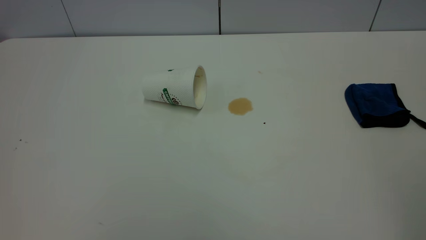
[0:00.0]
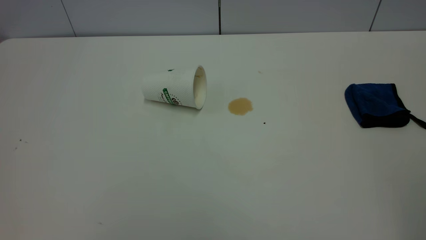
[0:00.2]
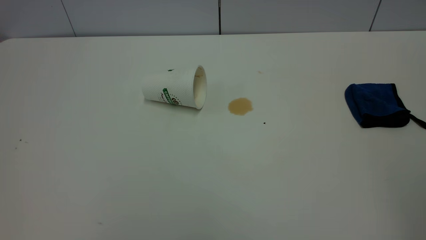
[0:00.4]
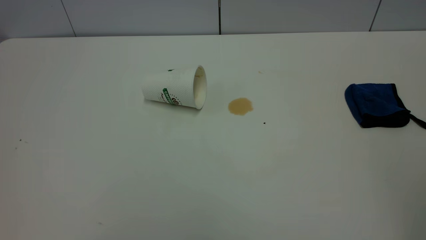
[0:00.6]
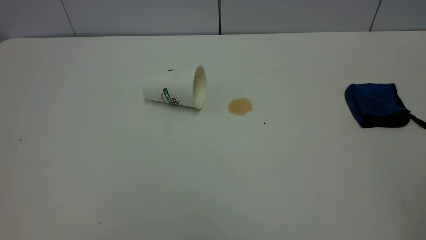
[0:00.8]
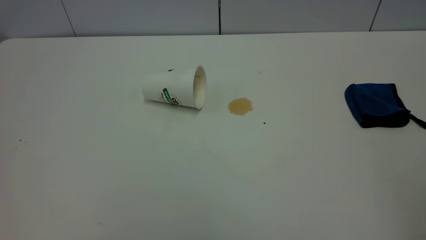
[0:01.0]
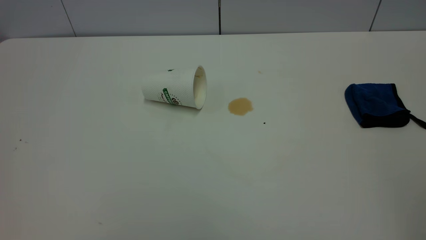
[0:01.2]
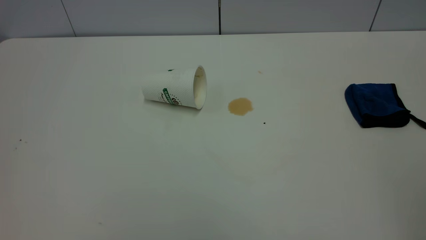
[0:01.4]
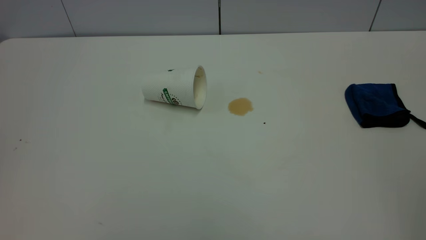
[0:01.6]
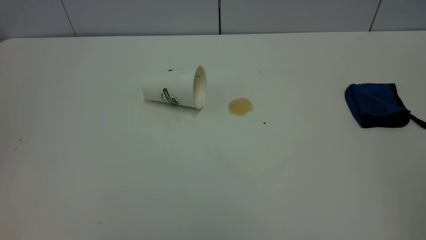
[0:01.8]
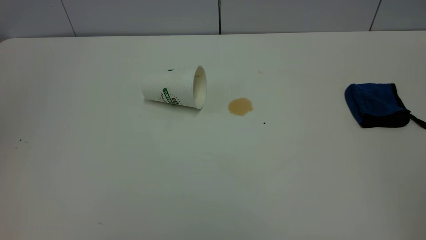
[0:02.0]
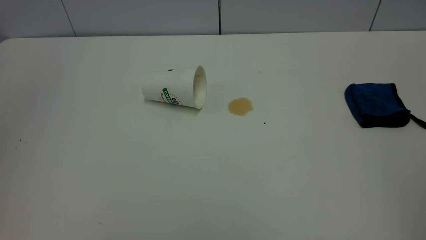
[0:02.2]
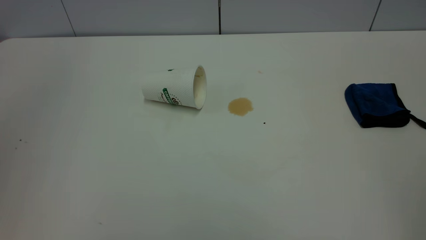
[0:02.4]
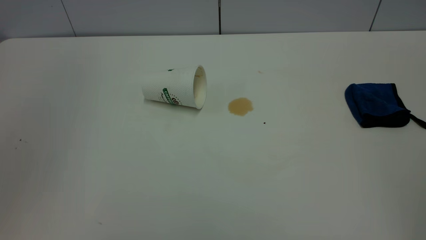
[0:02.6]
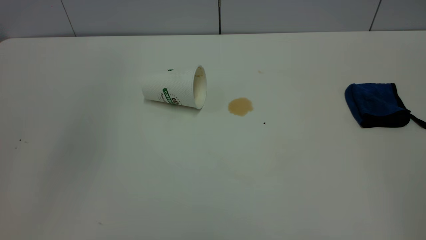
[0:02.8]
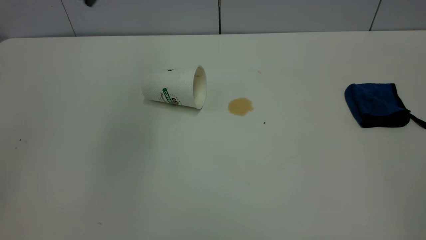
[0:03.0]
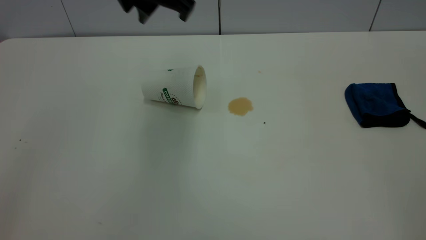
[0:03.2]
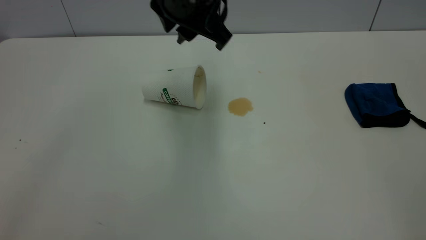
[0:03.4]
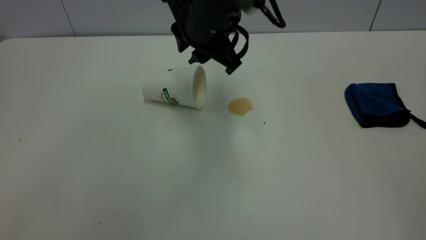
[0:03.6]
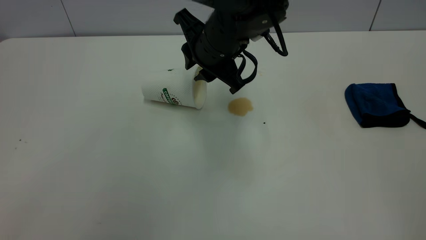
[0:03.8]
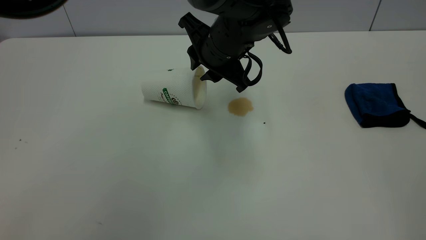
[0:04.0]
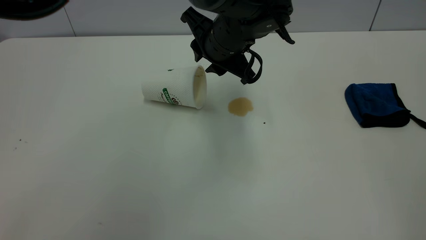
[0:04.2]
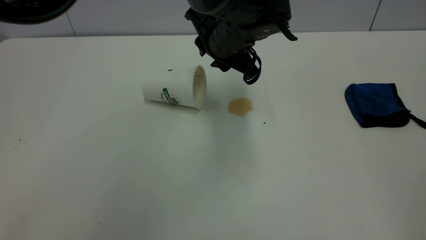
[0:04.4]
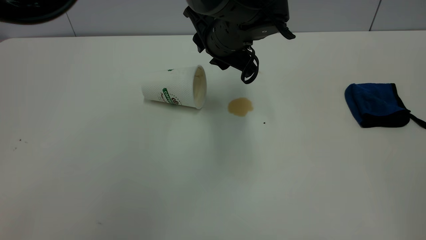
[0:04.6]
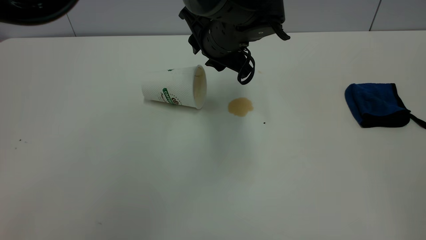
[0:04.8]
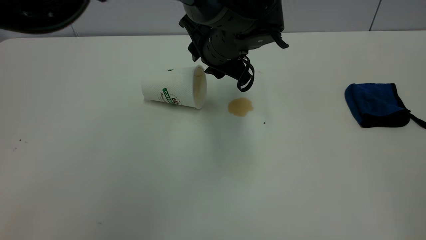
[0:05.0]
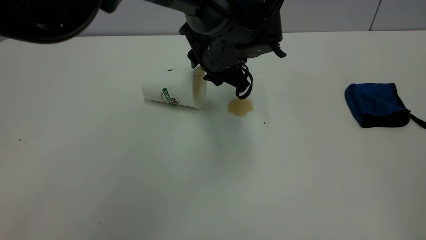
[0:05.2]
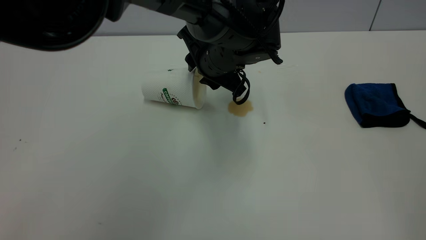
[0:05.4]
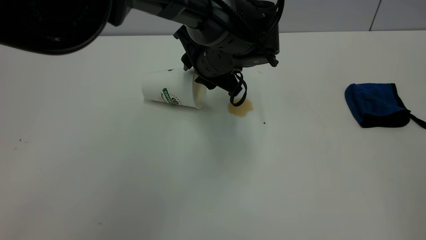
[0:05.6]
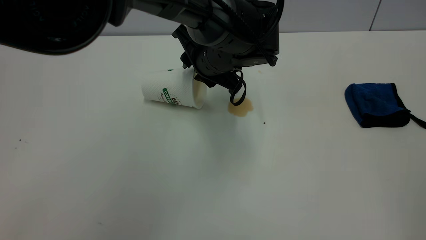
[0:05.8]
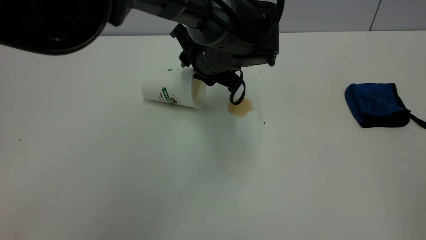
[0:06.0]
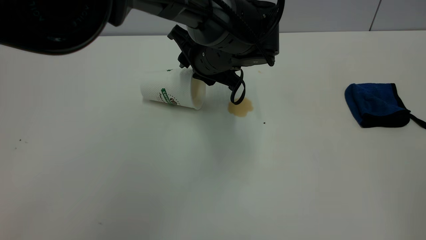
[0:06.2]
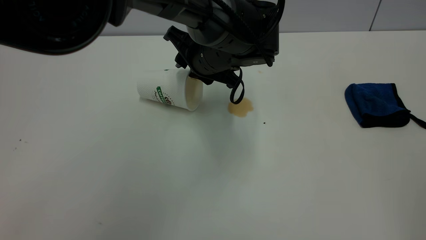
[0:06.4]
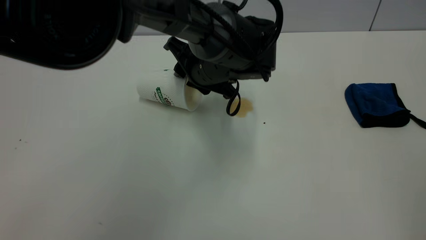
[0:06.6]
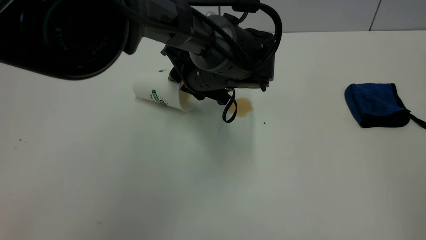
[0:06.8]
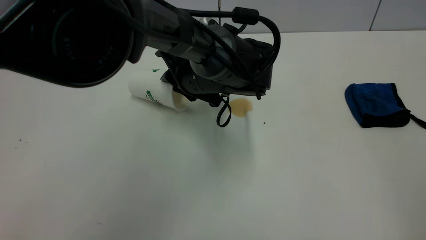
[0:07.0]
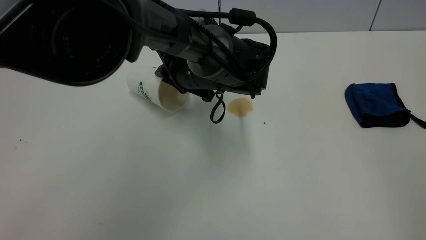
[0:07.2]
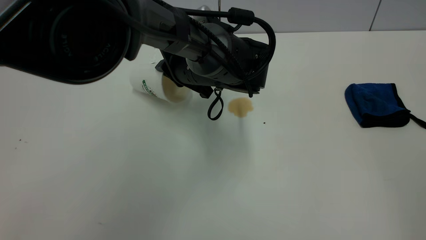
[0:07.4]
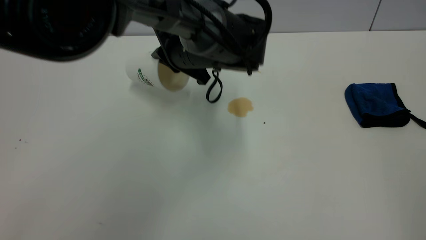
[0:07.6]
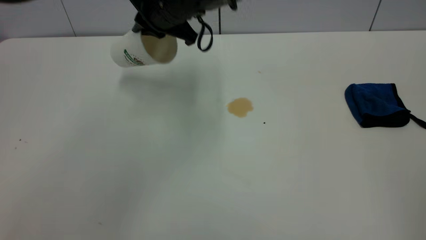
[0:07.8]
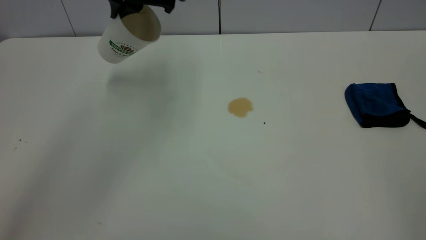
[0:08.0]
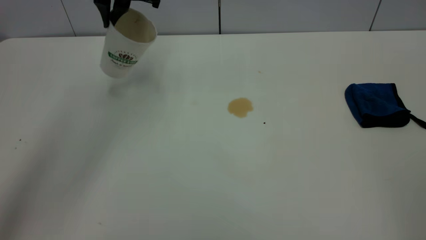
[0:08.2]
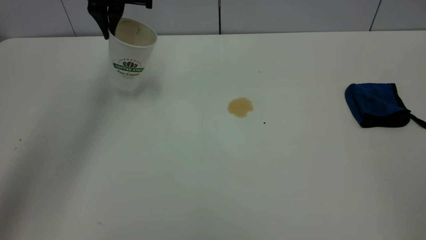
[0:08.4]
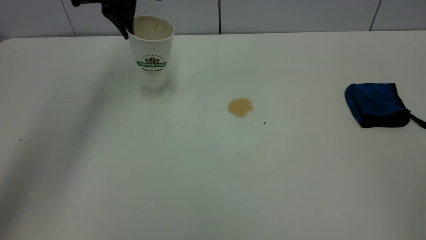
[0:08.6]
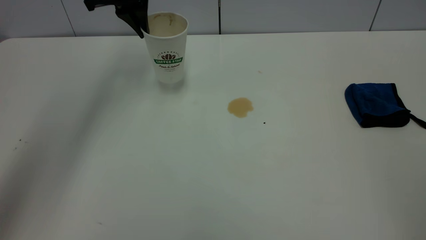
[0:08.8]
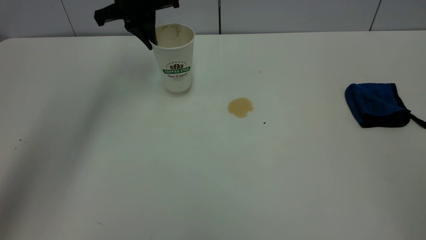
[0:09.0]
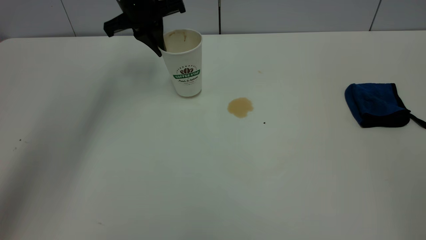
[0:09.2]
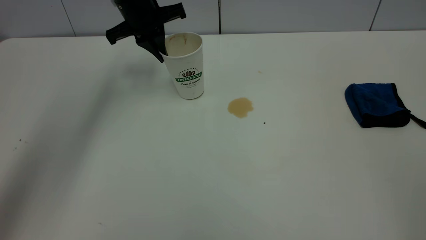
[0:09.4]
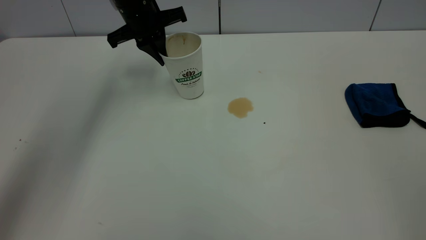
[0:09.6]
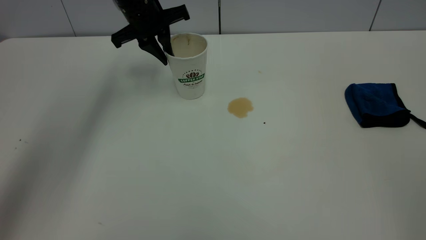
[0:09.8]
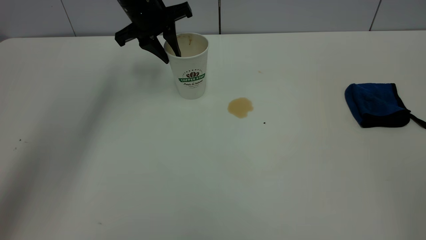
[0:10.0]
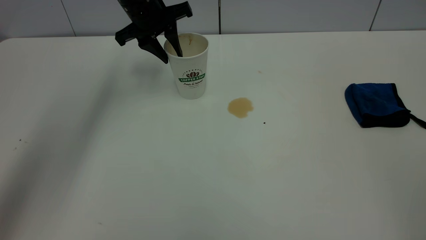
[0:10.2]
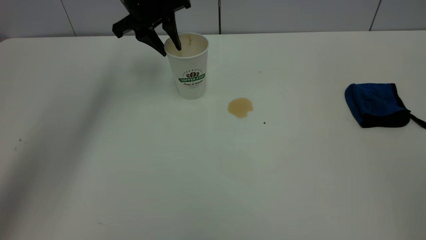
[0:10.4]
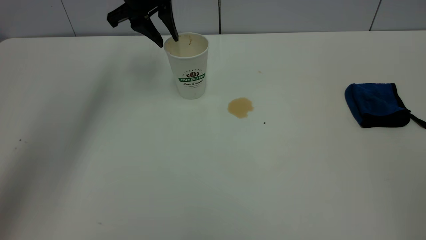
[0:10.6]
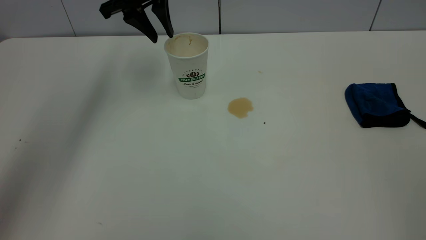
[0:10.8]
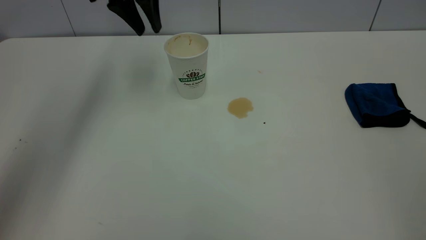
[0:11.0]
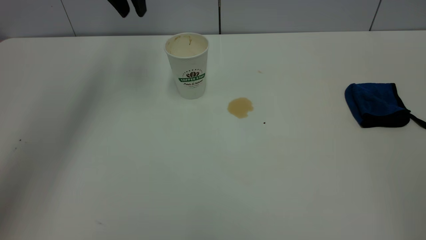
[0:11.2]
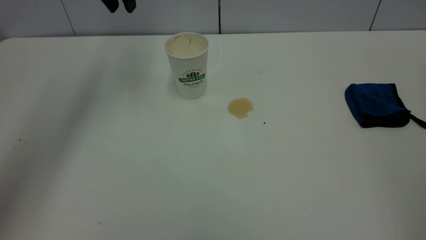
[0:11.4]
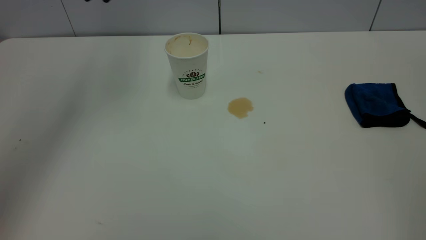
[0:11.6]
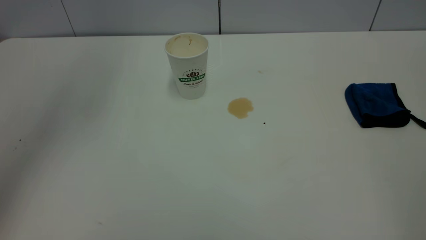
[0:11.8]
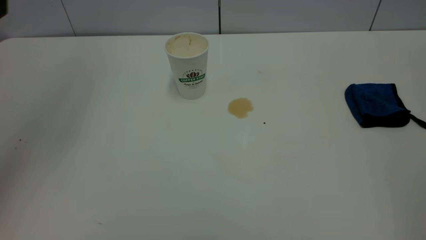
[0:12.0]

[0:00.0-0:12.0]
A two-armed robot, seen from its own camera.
Task of the whole recording: the left gripper pick up the fallen cup and place it upright, the right gripper grasp the blue rag and wipe the tea stain on the table, the right gripper put the blue rag back in its original position.
Step, 0:00.0 to 0:11.0: Stand the paper cup upright.
0:01.6 to 0:03.0: The left gripper shifts roughly 40 cm forward and to the right.
0:03.0 to 0:04.4: The left gripper goes some 25 cm downward, to the right and forward.
0:04.4 to 0:06.0: The grippers make only small movements.
0:06.0 to 0:07.6: The left gripper closes its fingers.
0:07.6 to 0:09.0: The left gripper moves to the left, forward and upward, roughly 15 cm.
0:09.0 to 0:10.4: The left gripper opens its fingers.
0:10.4 to 0:12.0: The left gripper moves backward, upward and to the left, roughly 25 cm.

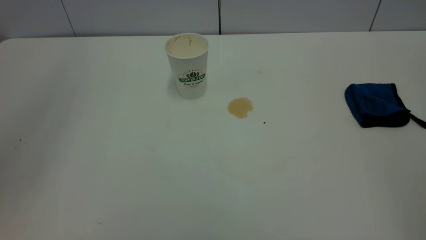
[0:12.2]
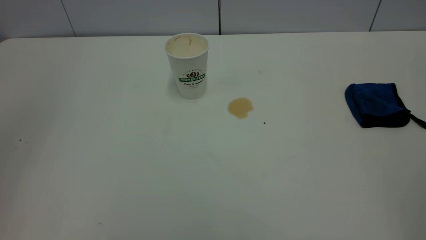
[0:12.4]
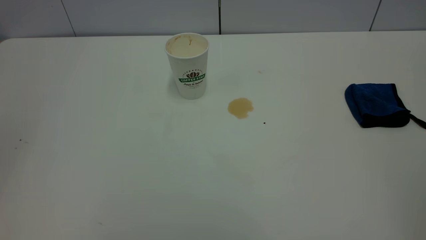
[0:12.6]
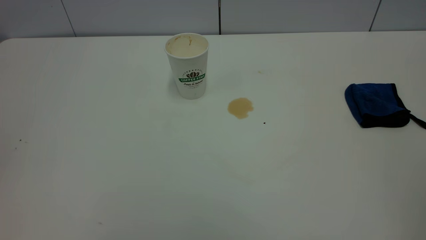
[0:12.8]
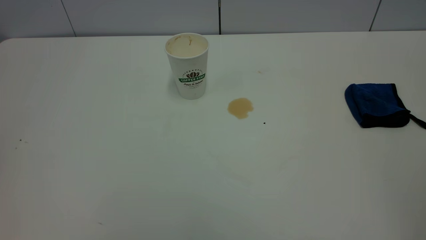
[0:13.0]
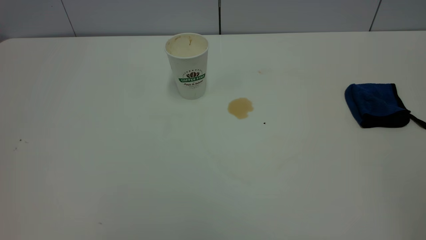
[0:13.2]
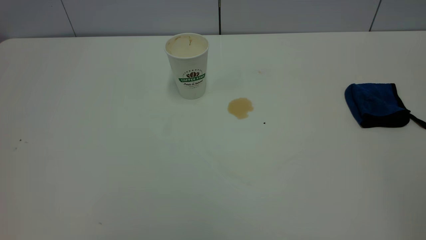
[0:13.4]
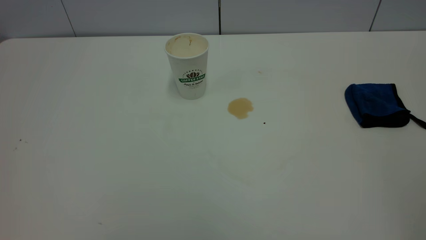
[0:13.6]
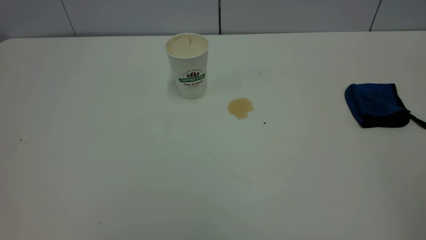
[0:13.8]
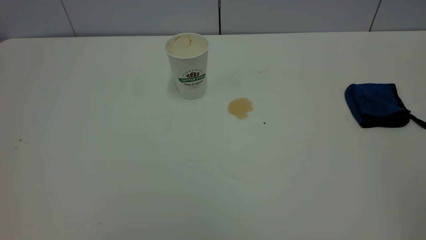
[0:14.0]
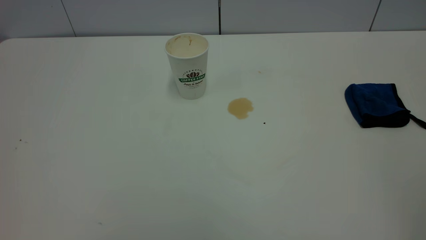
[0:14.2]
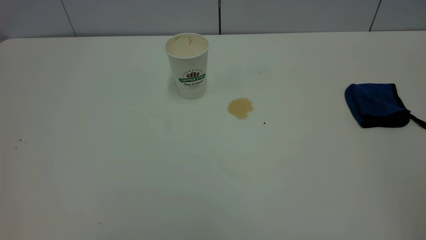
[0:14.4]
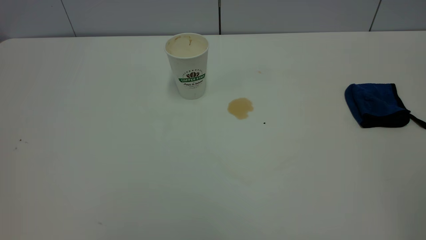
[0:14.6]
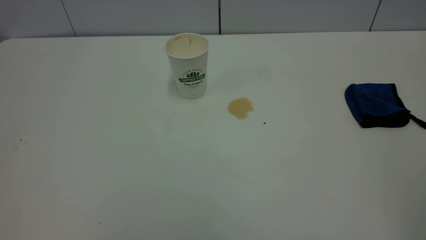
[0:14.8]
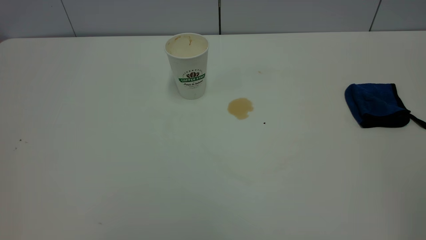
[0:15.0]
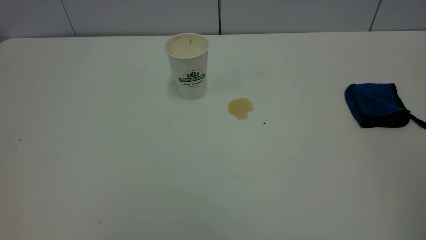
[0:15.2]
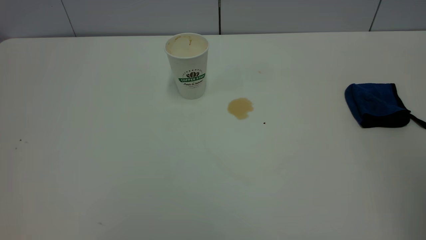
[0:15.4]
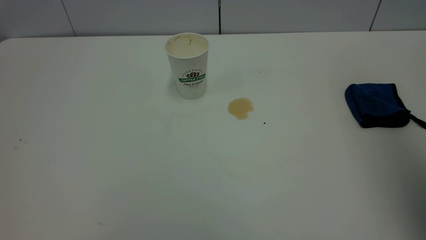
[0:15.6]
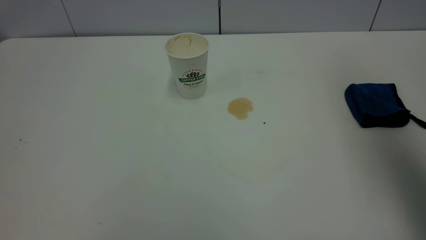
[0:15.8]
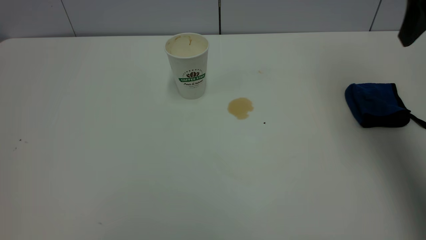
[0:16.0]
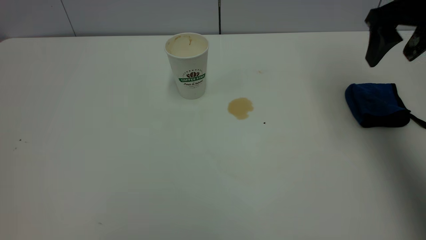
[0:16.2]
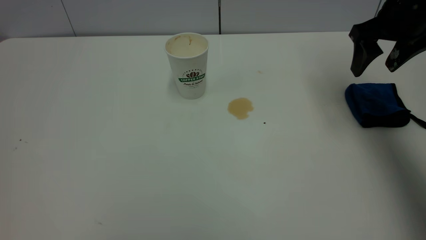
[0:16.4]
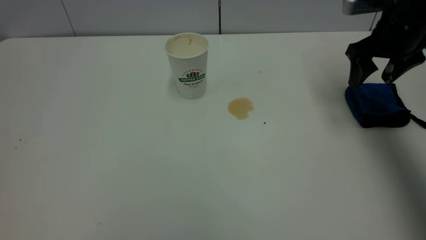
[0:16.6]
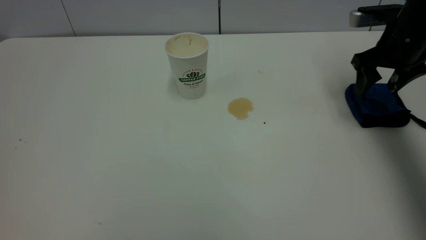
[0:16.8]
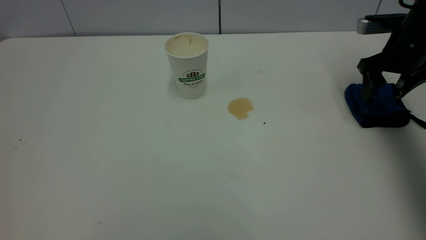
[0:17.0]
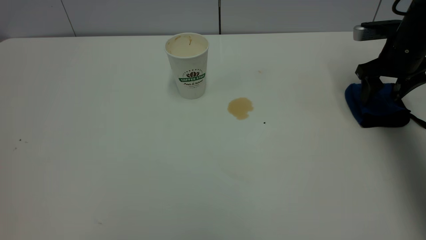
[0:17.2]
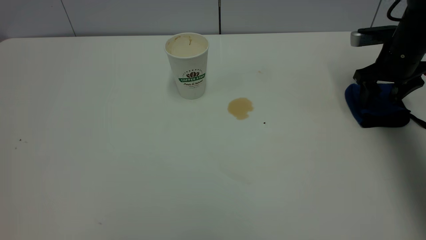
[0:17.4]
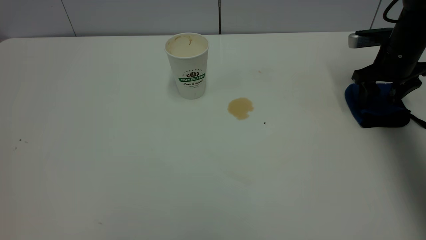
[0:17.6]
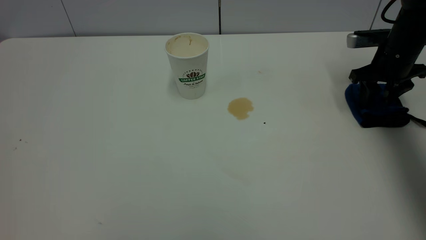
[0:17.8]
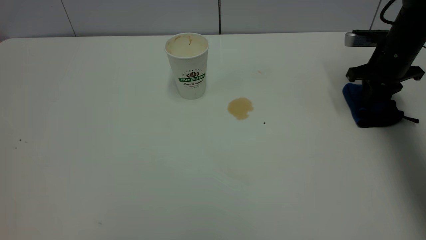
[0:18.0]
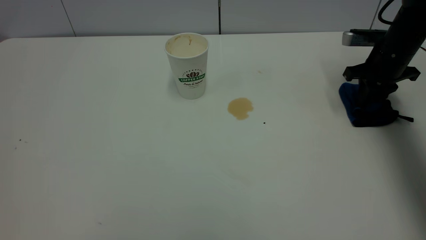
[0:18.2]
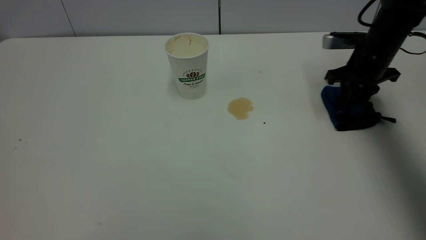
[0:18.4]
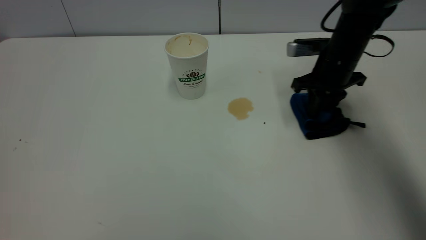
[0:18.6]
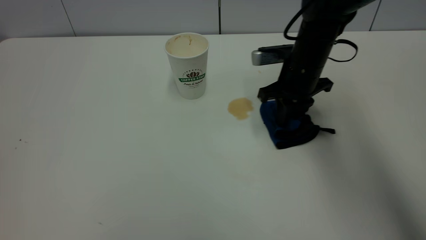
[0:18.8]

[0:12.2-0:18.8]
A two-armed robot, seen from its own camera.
Task of the whole recording: the left gripper pick up the fallen cup and place it upright, the right gripper grasp the blue rag and wipe the tea stain on the table, the right gripper put the blue rag back in its original position.
0:15.4 to 0:17.2: The right gripper travels forward and downward by about 40 cm.
0:17.2 to 0:18.8: The right gripper heads to the left, covering some 20 cm, and closes.
